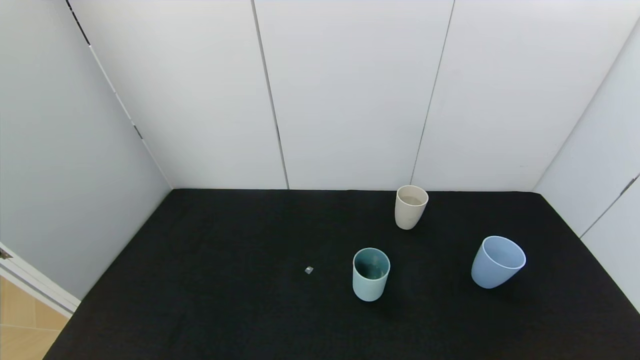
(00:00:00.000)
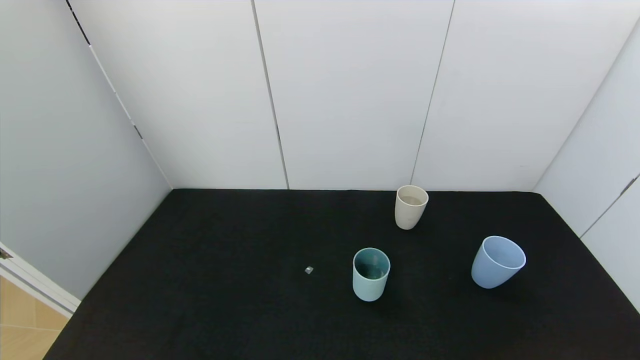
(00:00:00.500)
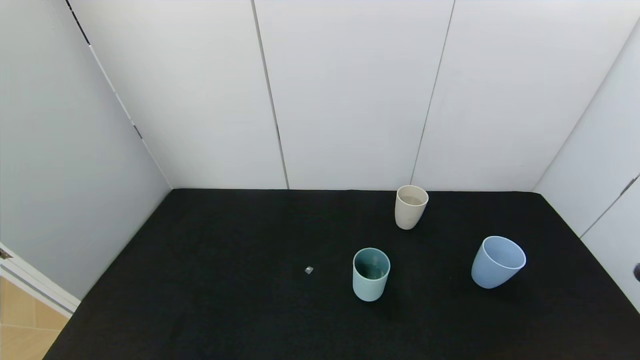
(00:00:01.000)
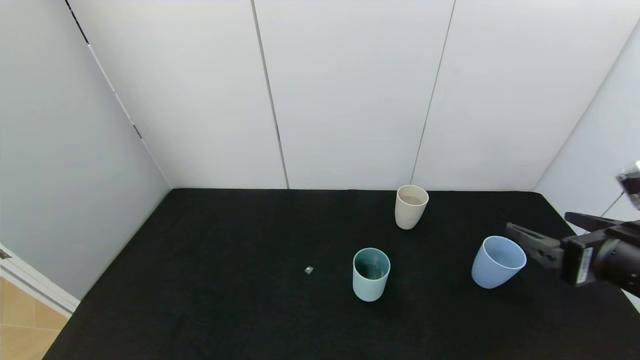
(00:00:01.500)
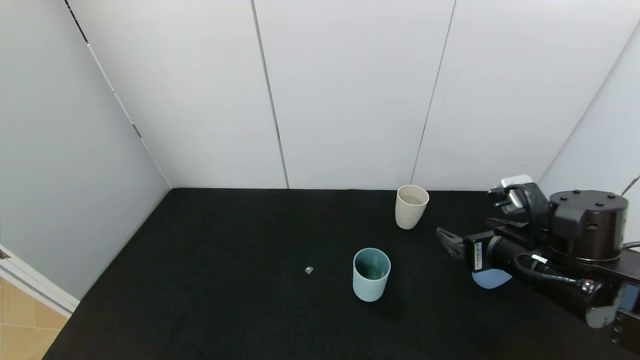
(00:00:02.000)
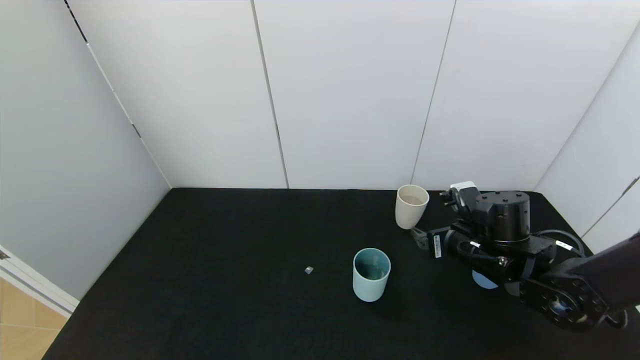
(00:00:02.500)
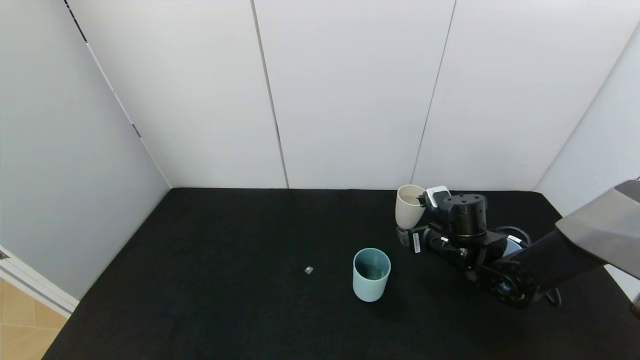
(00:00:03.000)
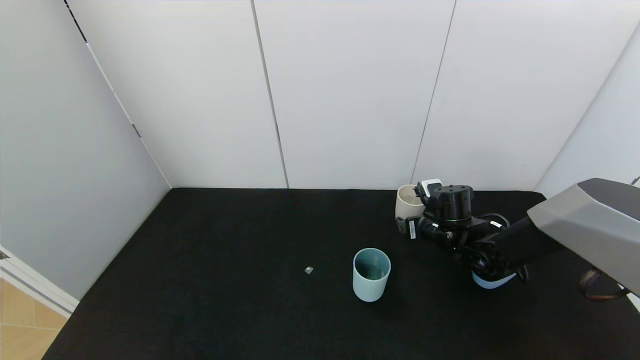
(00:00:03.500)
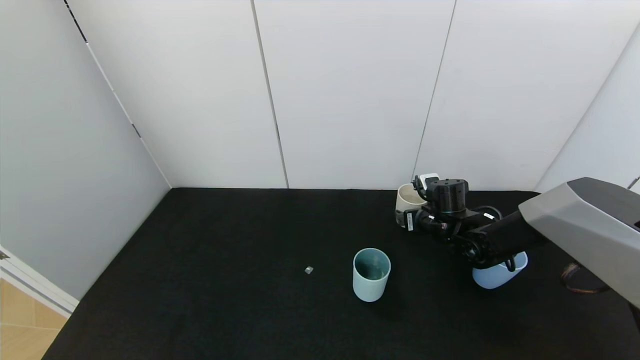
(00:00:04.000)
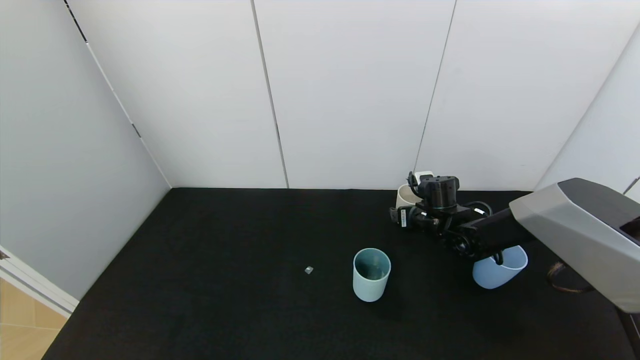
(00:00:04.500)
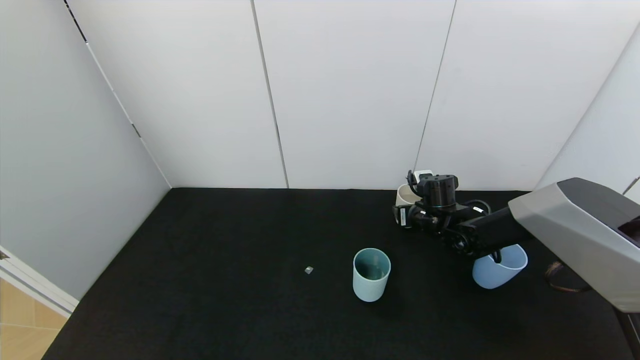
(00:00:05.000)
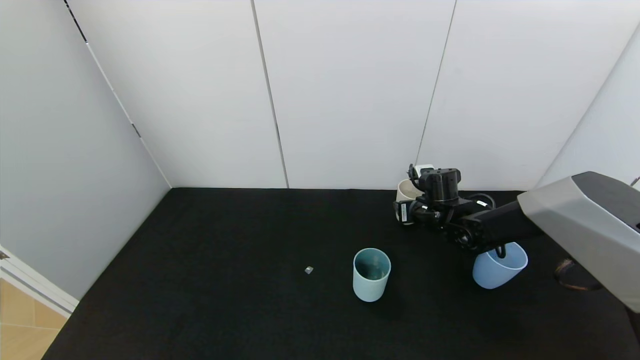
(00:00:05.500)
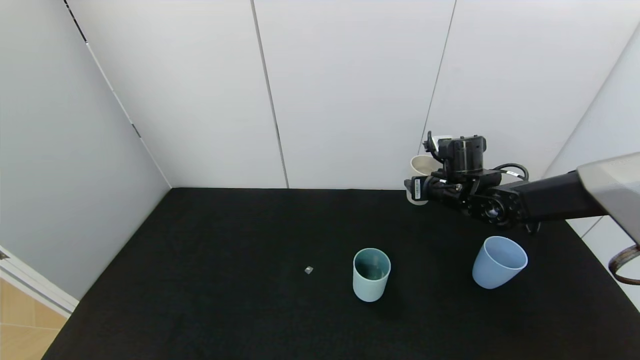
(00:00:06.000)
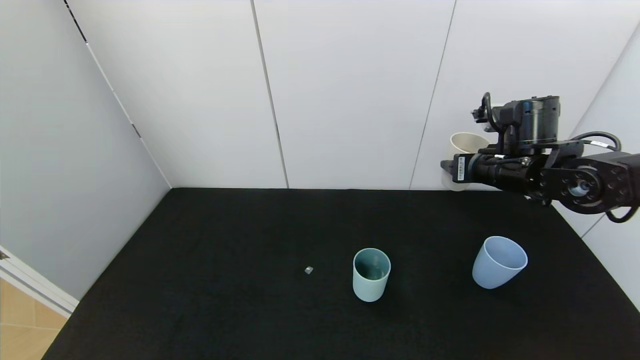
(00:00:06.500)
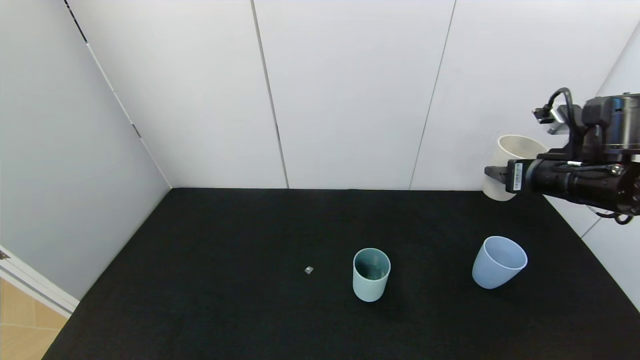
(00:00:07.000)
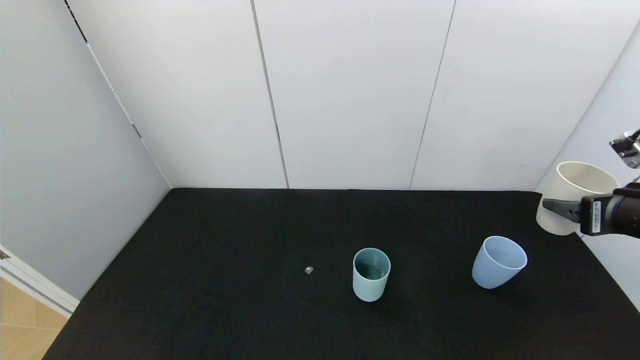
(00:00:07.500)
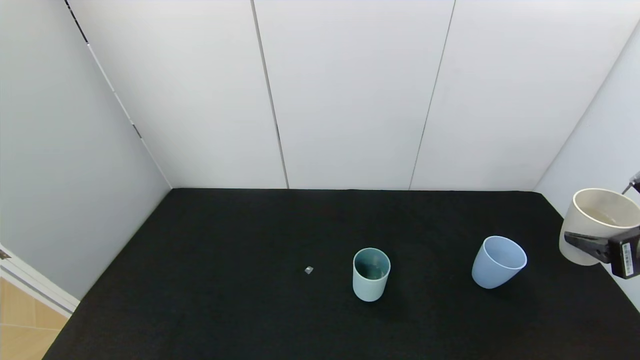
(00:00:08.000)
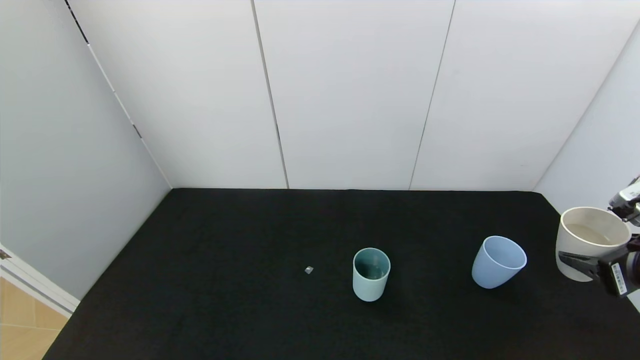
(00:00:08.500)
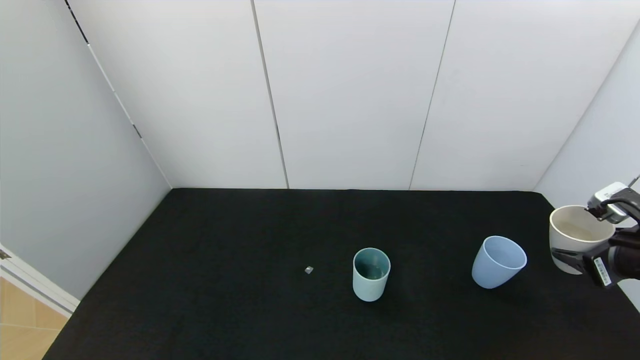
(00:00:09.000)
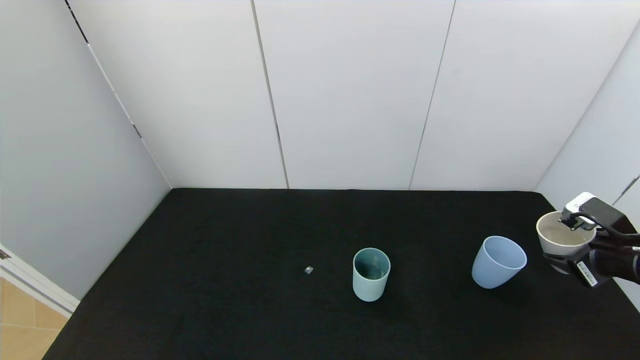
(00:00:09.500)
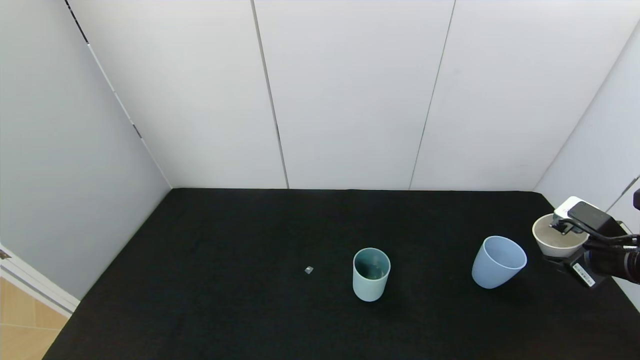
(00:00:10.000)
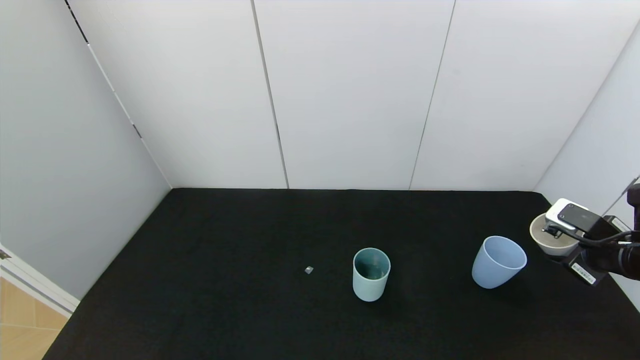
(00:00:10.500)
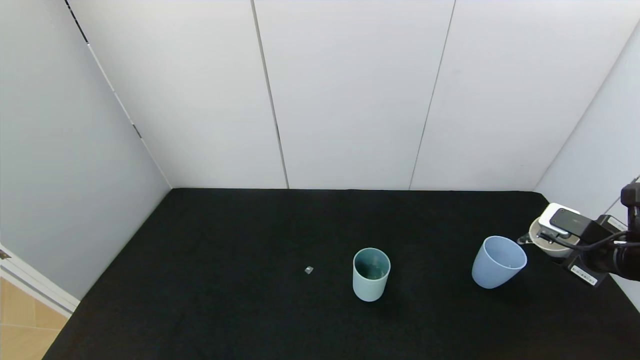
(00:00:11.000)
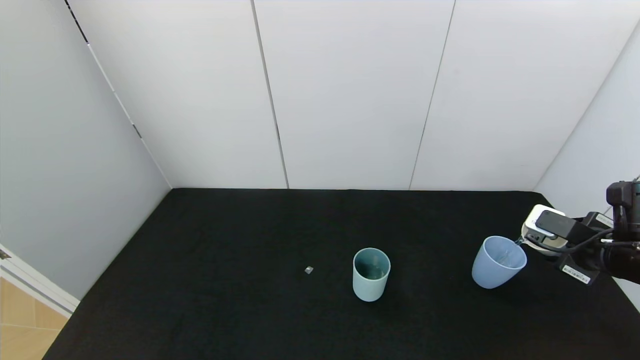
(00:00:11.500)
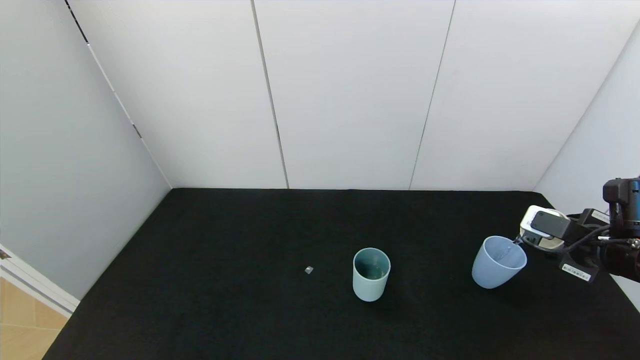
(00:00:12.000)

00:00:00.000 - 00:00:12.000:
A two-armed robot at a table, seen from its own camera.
Task of the whole recording: use the gripper to pour the water into the other two cups on black table.
Step, 00:00:00.000 - 00:00:05.000: Grasp the white cup with the right gripper.
00:00:00.000 - 00:00:02.000: The right gripper heads forward and to the left, covering some 30 cm.
00:00:02.000 - 00:00:04.000: The right gripper is displaced forward and downward by roughly 20 cm.
00:00:04.000 - 00:00:06.000: The right gripper moves upward, some 10 cm, and closes up.
00:00:06.000 - 00:00:08.000: The right gripper shifts approximately 30 cm backward and to the right.
00:00:08.000 - 00:00:10.000: The right gripper shifts approximately 10 cm forward and downward.

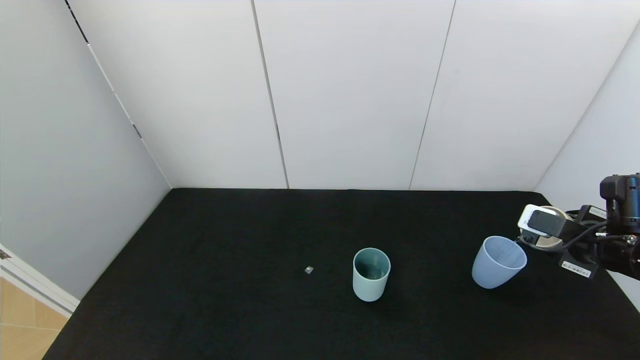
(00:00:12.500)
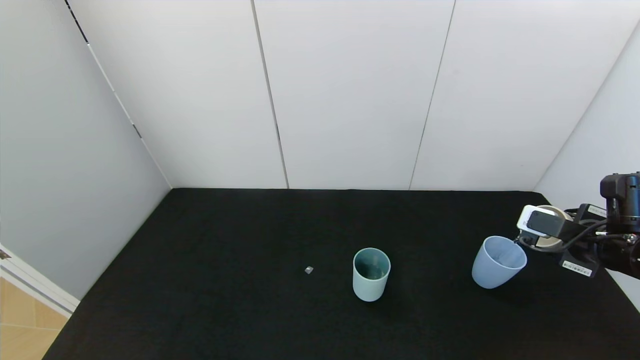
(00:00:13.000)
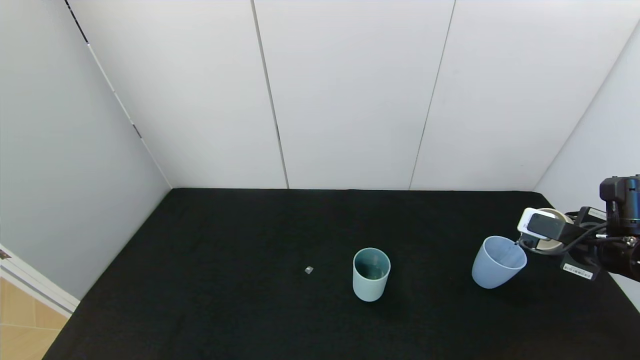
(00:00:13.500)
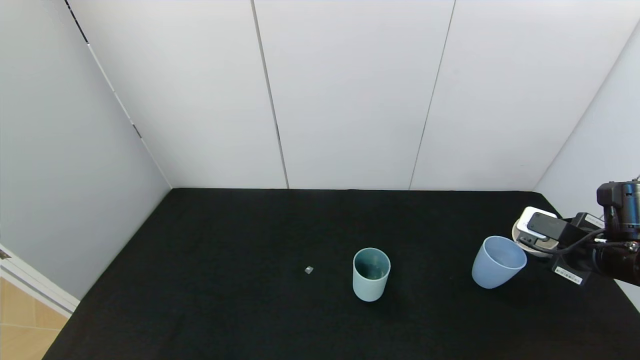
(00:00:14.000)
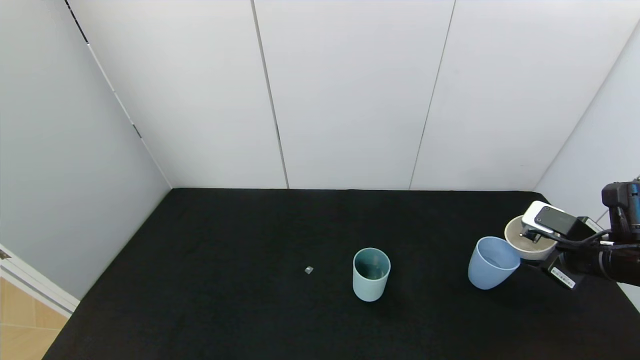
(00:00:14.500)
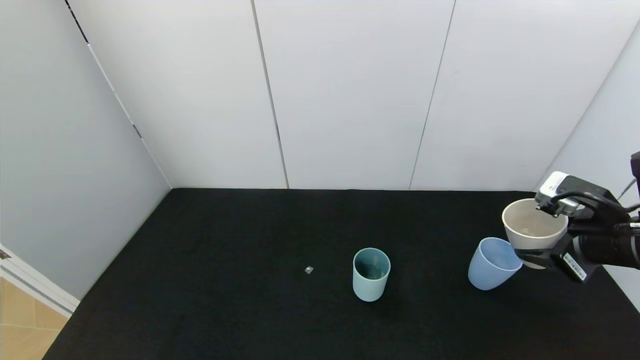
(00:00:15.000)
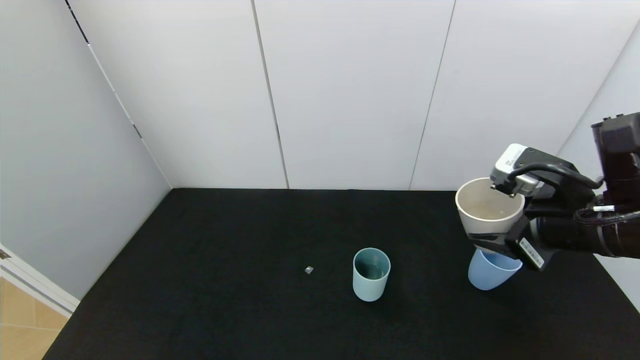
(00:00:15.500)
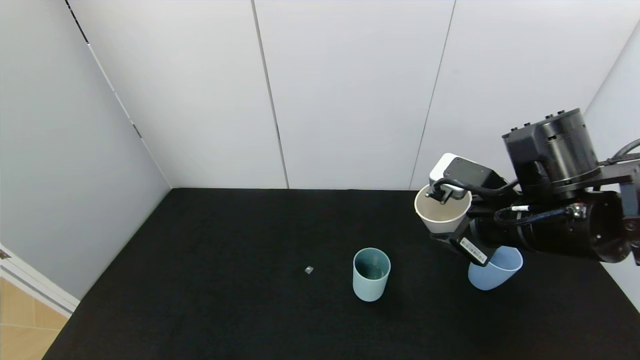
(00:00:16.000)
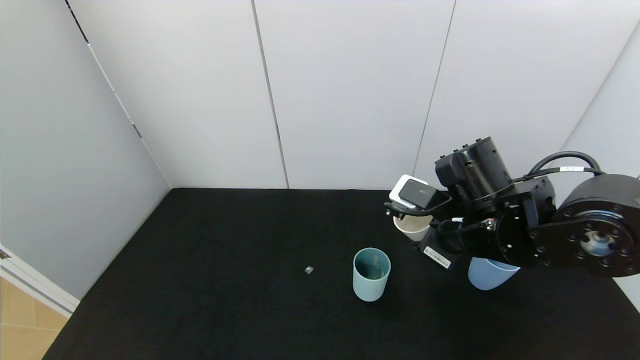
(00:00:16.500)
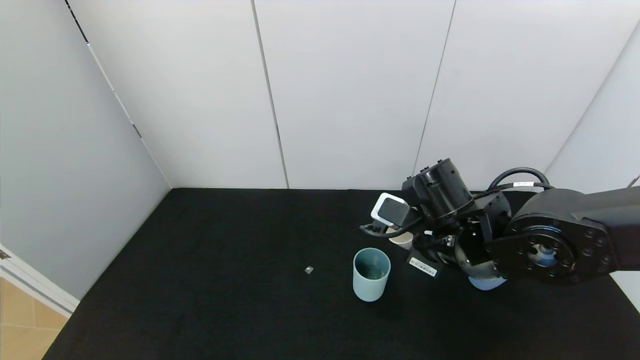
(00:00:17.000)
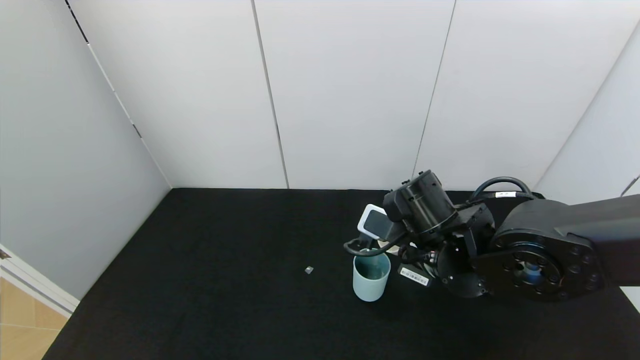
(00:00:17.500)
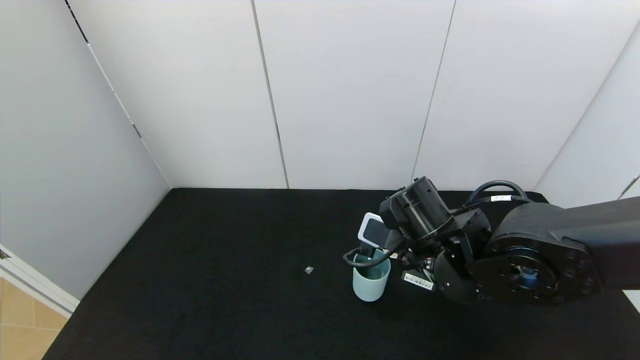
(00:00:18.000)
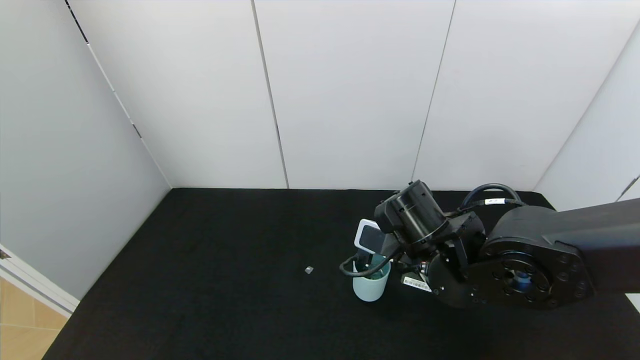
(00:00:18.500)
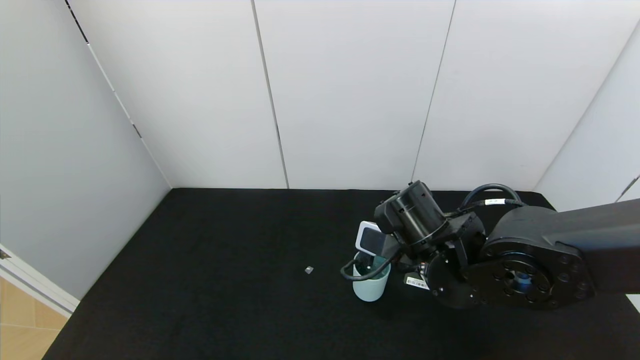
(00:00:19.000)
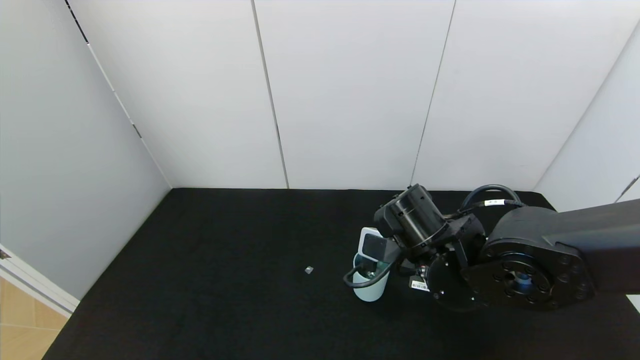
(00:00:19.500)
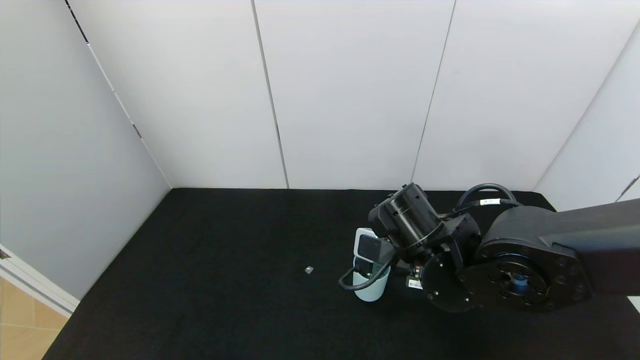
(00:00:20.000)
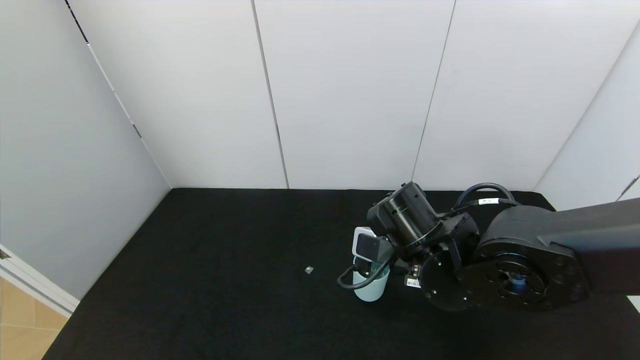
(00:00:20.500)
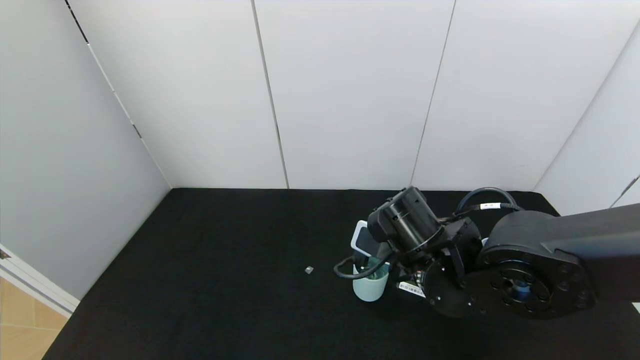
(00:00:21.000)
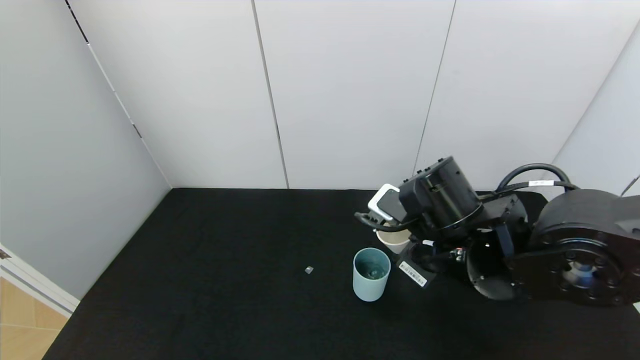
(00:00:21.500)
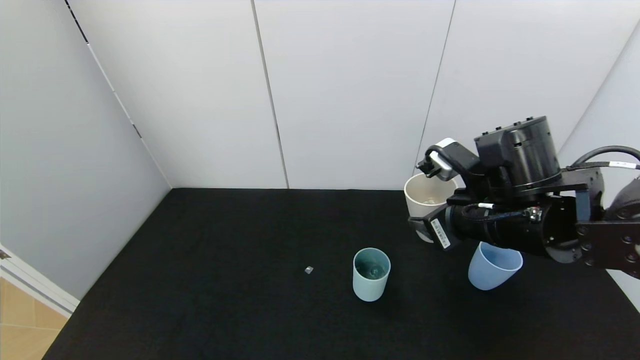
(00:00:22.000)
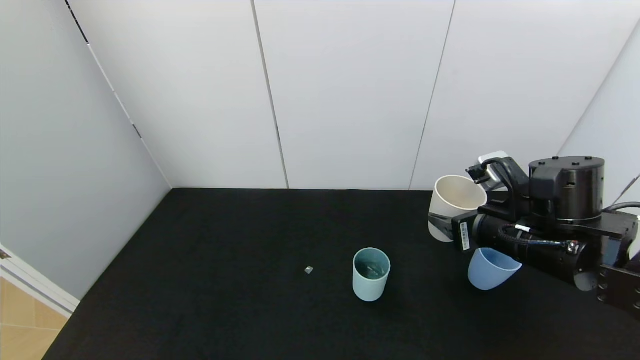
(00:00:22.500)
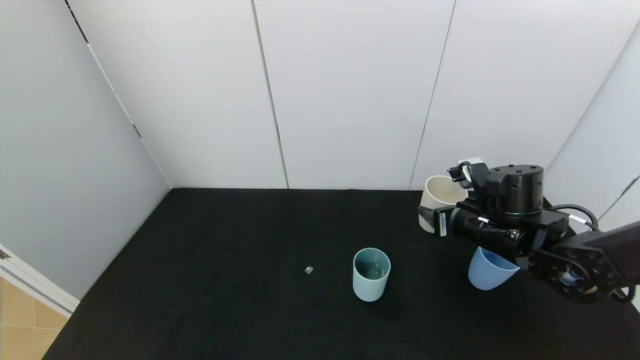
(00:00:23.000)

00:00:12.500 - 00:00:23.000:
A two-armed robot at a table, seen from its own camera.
Task of the whole recording: use the gripper to pour the water into the other two cups on black table.
Step, 00:00:12.500 - 00:00:14.500: Pour water from white cup to blue cup with the right gripper.
Step, 00:00:15.000 - 00:00:21.500: Pour water from white cup to green cup with the right gripper.
00:00:14.500 - 00:00:16.500: The right gripper is displaced to the left by approximately 20 cm.
00:00:16.500 - 00:00:19.000: The right gripper shifts by approximately 5 cm.
00:00:19.000 - 00:00:21.000: There are only small adjustments of the grippers.
00:00:21.000 - 00:00:23.000: The right gripper shifts some 15 cm to the right and forward.
